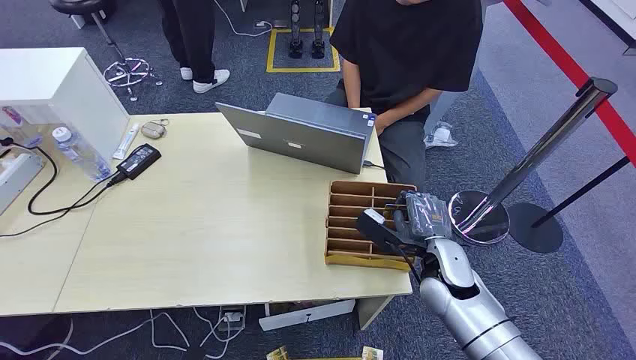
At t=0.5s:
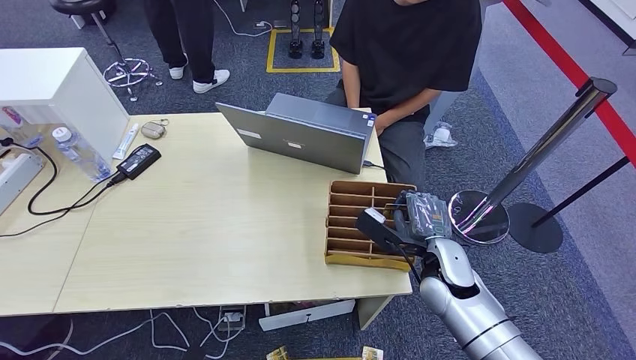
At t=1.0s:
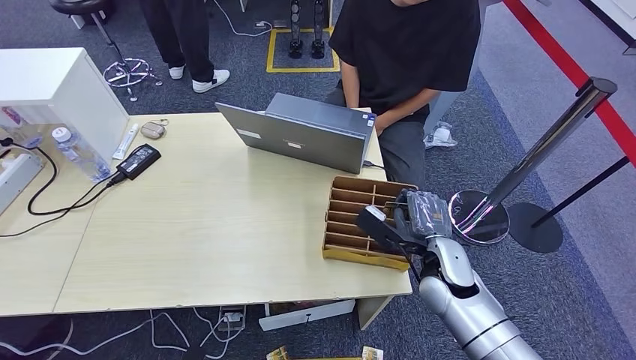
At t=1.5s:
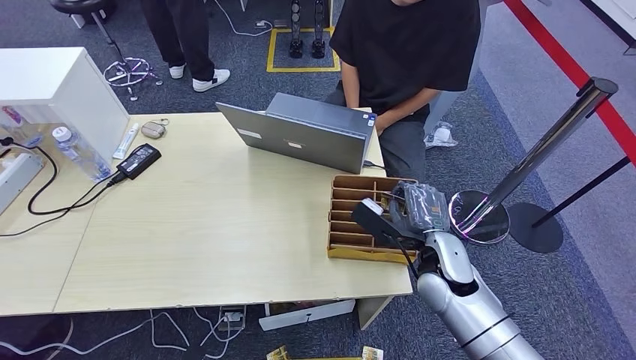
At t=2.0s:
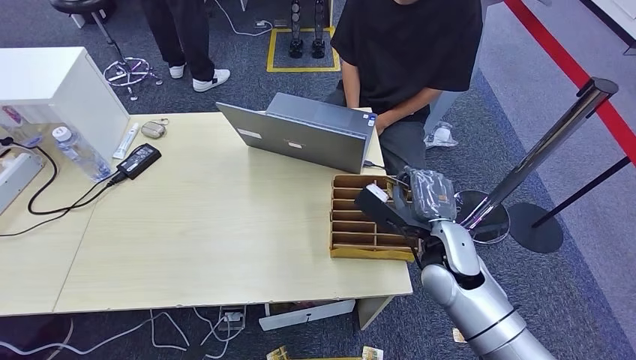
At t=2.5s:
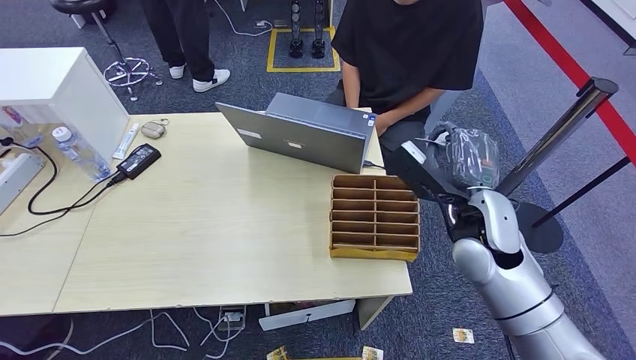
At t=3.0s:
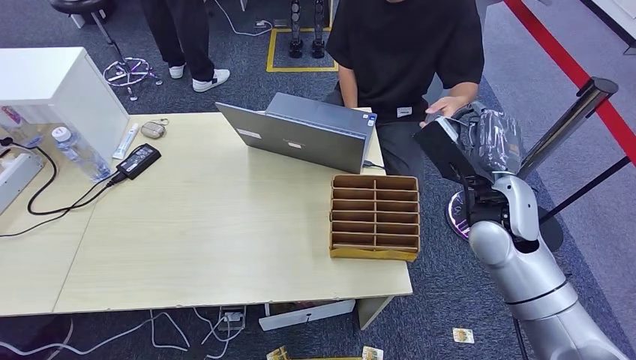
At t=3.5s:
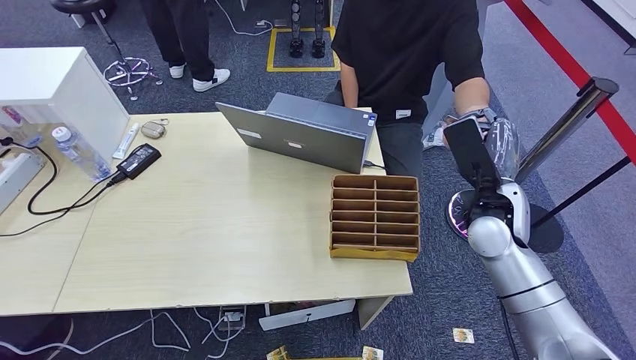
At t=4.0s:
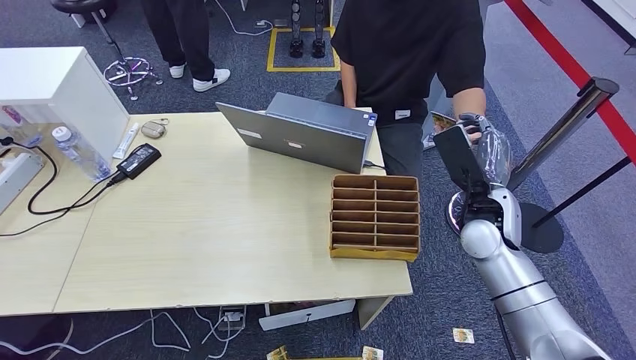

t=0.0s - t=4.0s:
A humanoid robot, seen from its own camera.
Step, t=0.0s - t=2.0s: Pick up the key card from the card box.
Step, t=2.5s - t=4.0s: Hand the key card to the target.
t=2.0s - t=4.0s: The right hand is displaced to the right by some 5 cm.
